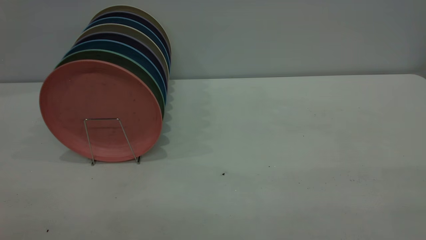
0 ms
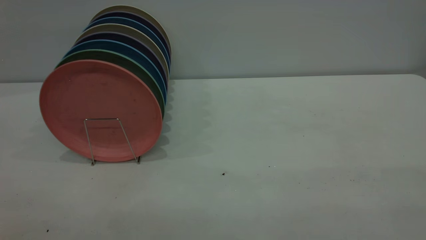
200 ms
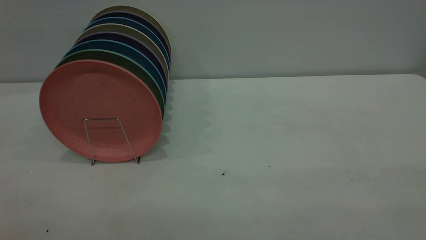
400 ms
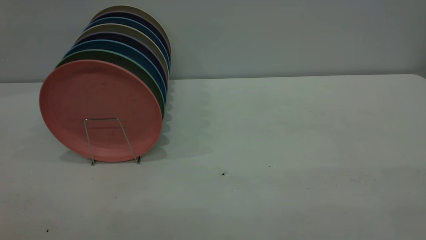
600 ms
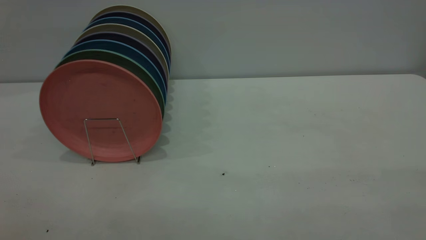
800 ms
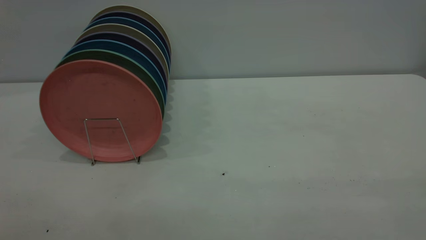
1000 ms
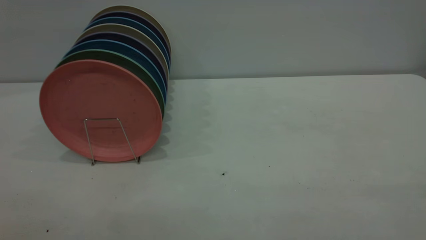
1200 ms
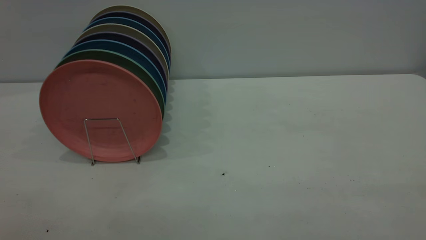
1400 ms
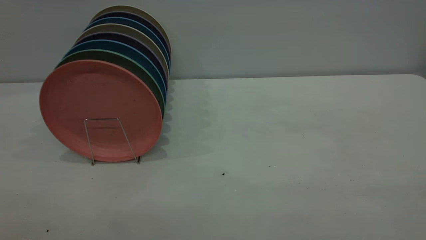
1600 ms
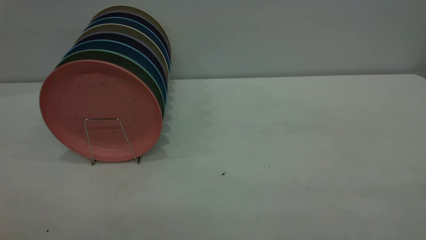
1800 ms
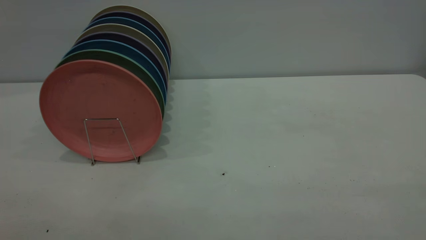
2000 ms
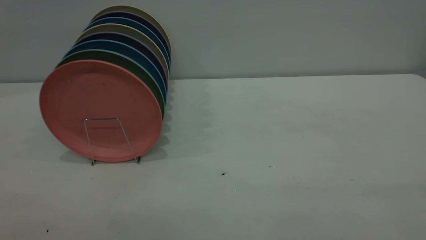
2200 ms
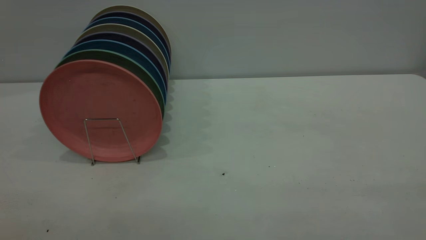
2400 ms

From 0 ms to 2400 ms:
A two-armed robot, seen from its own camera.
Task of the whole recording: the right gripper grasp the pink plate, the right gripper pass the pink plate to the left gripper, and the left gripper place the pink plate on the plate rack.
From 1200 ms to 2400 ms: Neither gripper changes place.

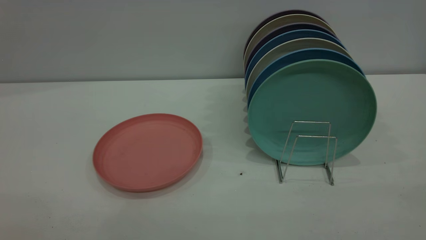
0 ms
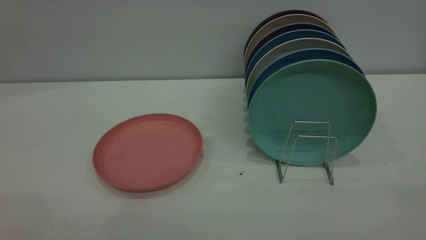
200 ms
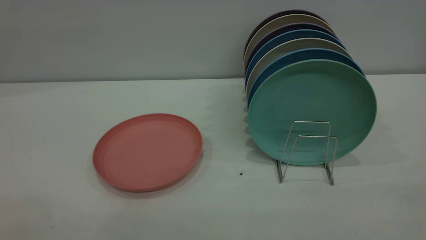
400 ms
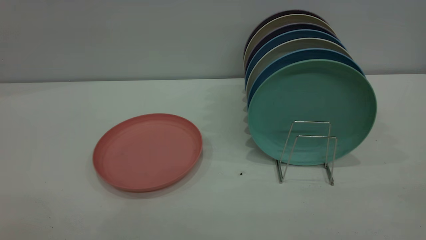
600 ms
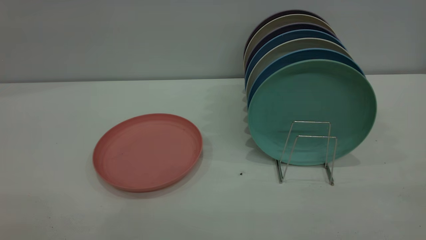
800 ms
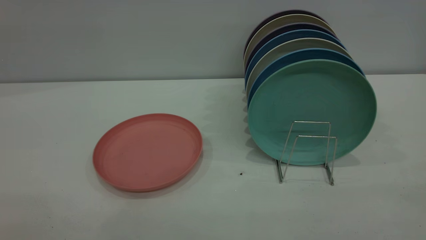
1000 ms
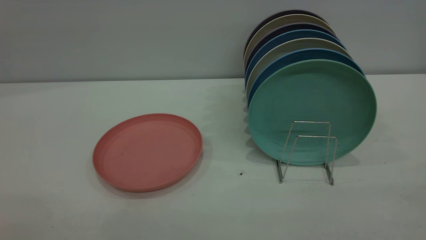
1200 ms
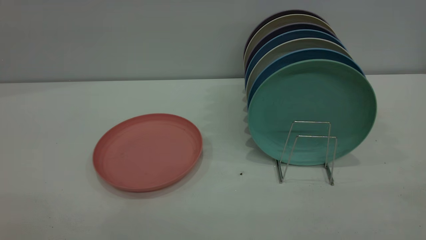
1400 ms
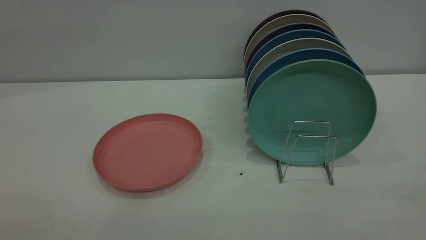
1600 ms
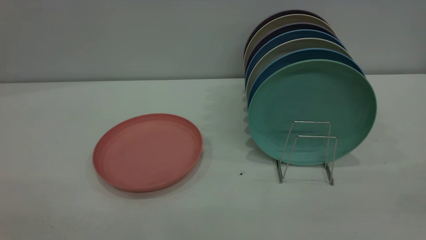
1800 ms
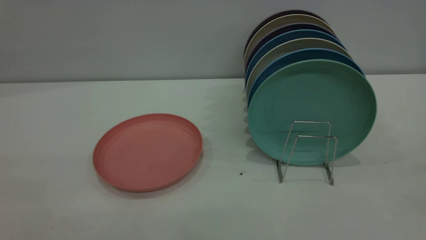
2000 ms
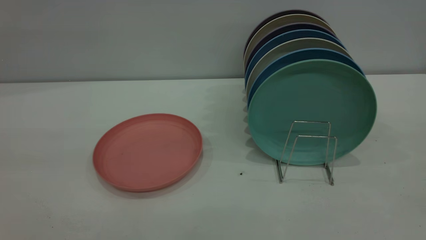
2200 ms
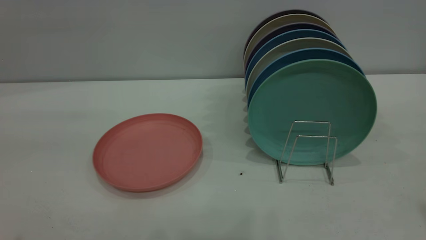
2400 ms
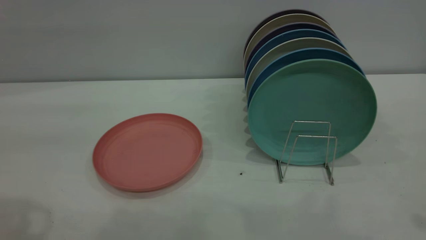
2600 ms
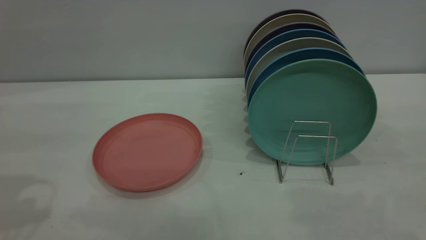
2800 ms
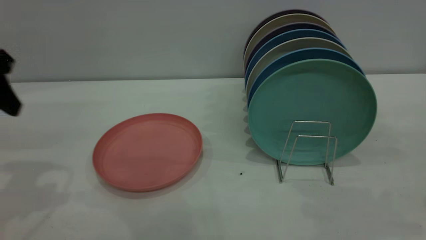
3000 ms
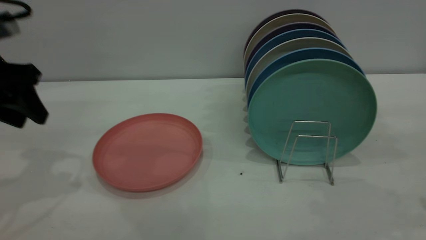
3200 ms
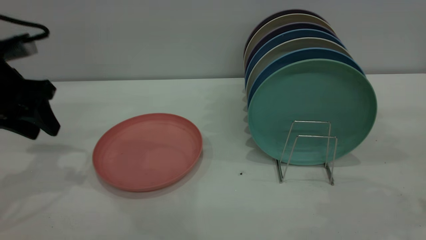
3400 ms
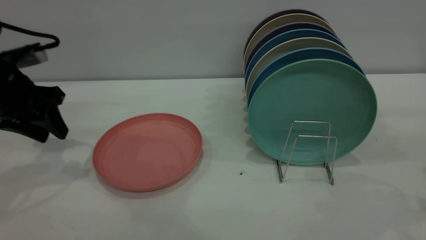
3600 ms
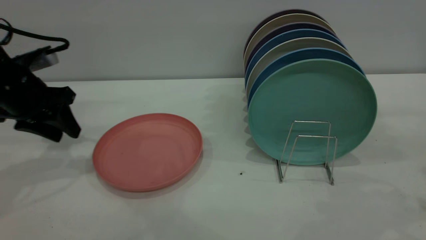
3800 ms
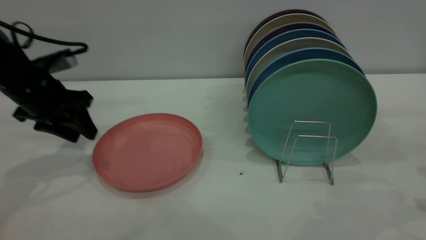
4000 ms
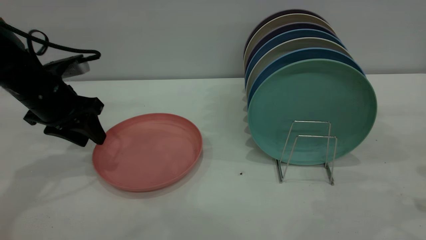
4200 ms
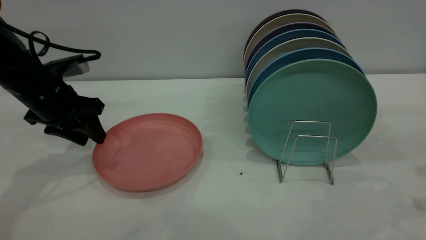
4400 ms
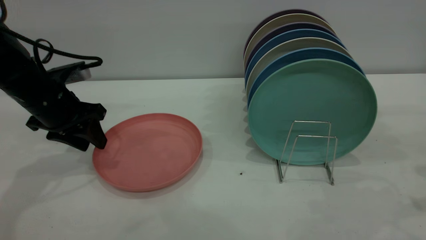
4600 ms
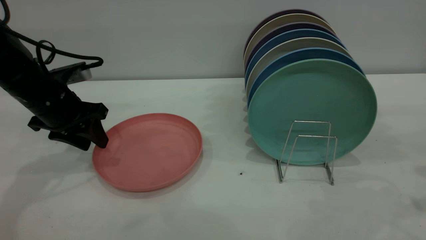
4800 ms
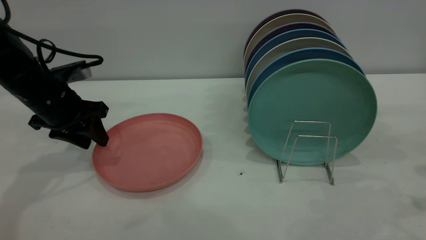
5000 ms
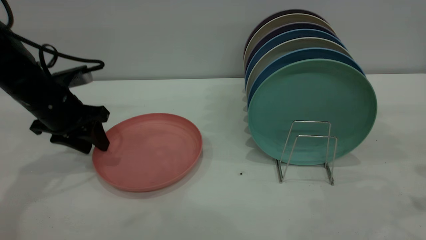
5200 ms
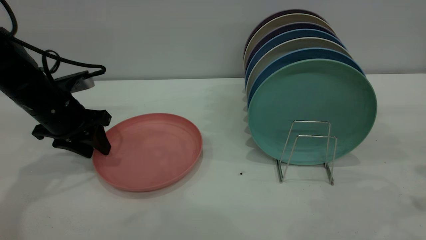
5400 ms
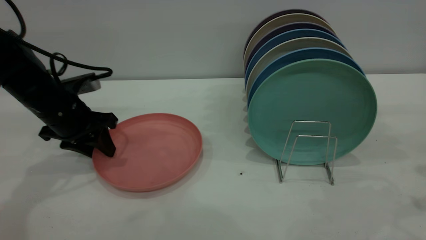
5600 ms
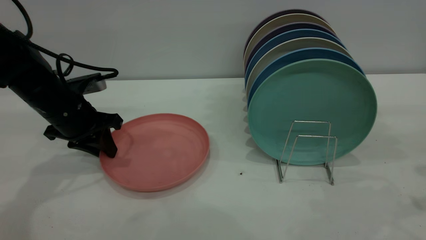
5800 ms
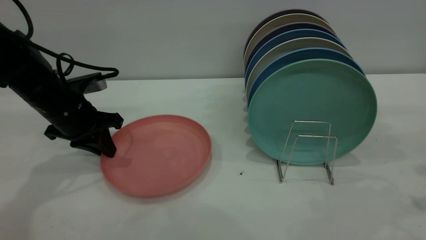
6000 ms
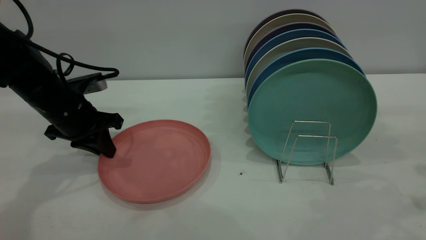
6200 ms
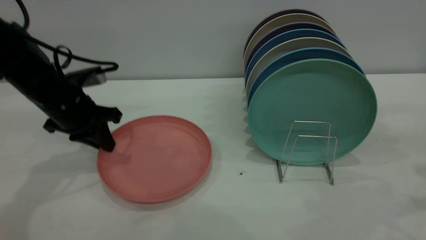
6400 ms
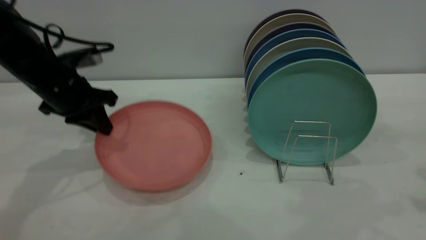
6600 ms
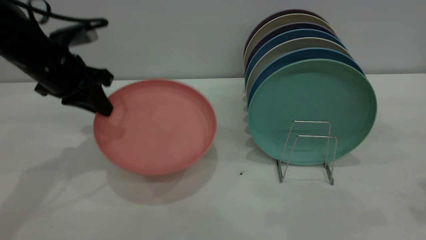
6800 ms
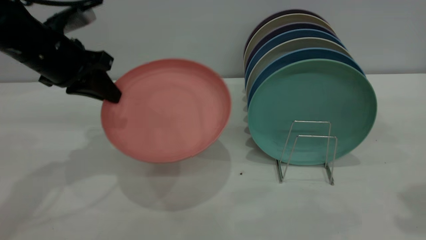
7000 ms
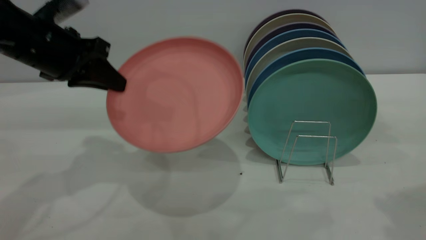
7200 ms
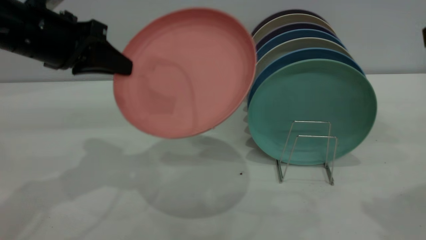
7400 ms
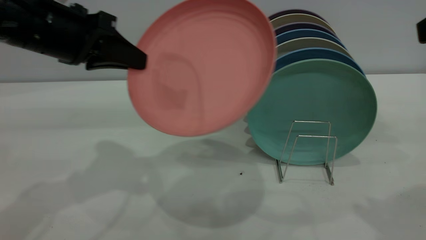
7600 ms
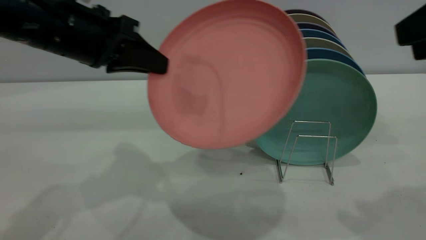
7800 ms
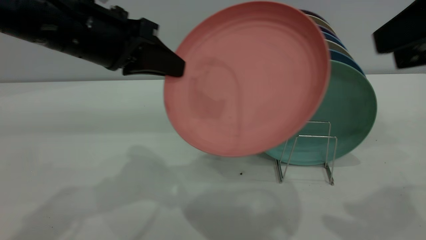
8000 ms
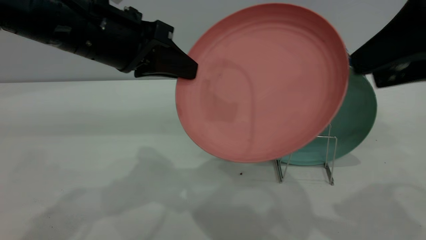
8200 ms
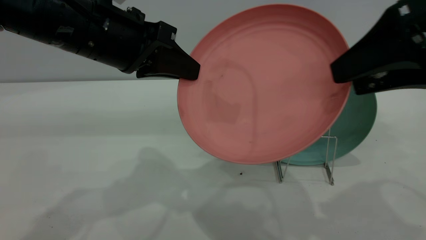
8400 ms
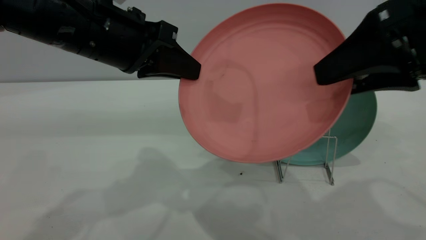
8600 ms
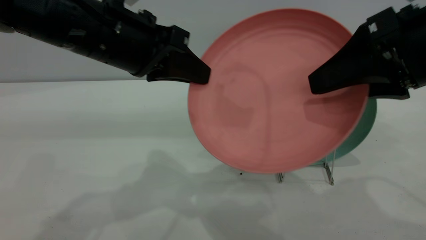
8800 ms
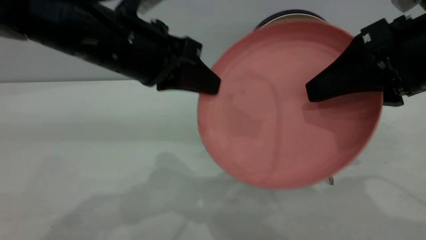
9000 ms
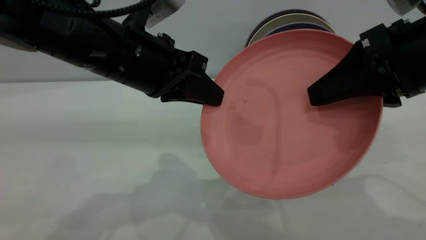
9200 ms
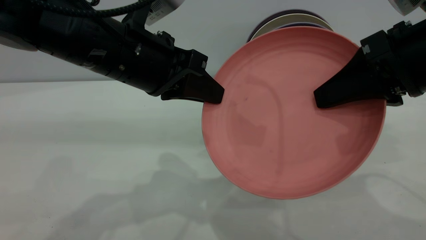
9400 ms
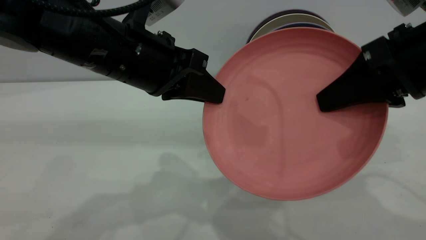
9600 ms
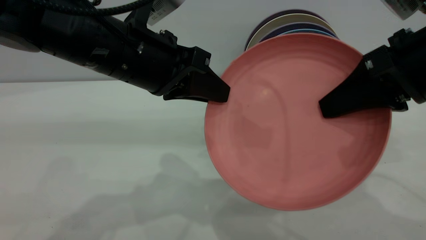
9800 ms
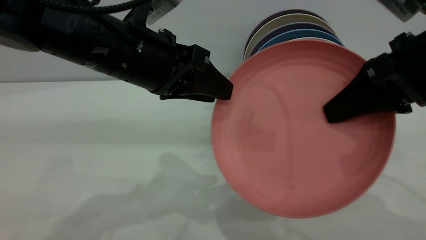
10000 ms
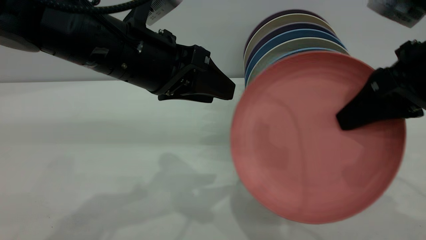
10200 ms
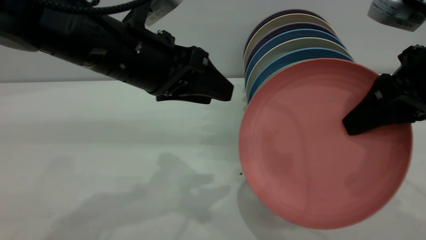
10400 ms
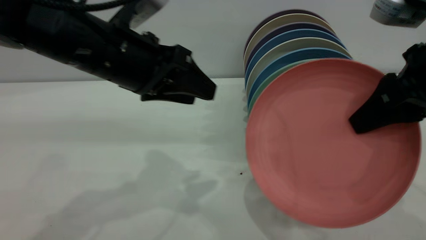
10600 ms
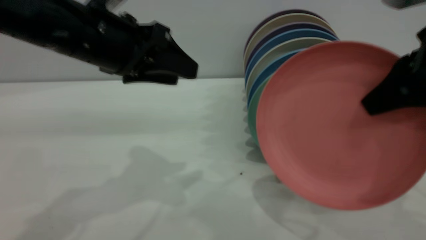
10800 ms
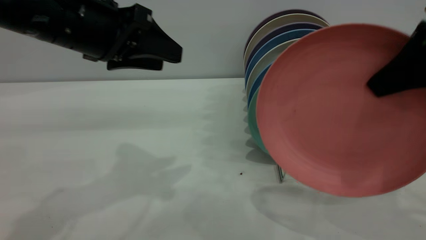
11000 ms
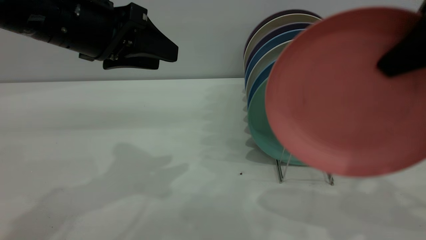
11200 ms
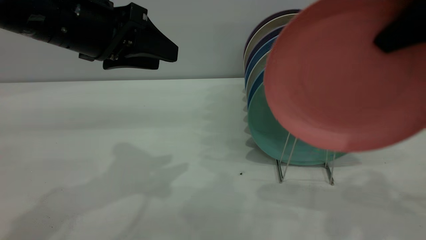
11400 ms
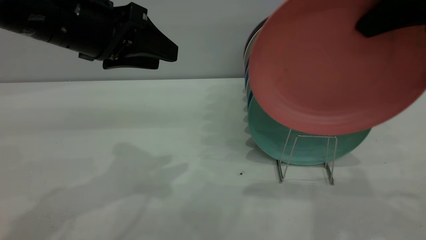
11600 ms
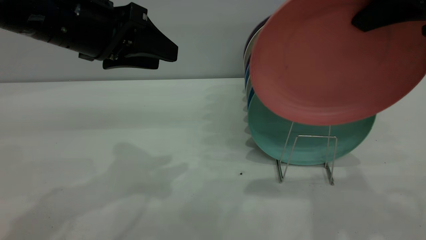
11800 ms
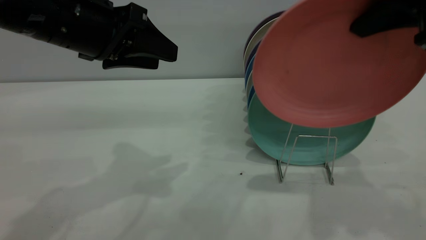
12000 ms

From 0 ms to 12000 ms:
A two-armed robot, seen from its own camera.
Task of the whole recording: put the plate on the plate rack.
Step, from 0 ms to 6600 ms: Pick up the plate with the left gripper.
Step, from 6800 ms to 10200 ms: Pass the plate from the left gripper to the right gripper.
From 0 ms to 1600 ms: Both grippers stay about where they are.
From 1600 ms to 3000 ms: The left gripper heads forward, covering roughly 30 cm.
From 3000 ms to 4400 ms: The left gripper heads downward and forward, covering approximately 15 cm.
From 4400 ms to 6000 ms: The left gripper closes up.
From 6000 ms to 7600 ms: The right gripper goes roughly 10 cm upward and to the left; the left gripper shifts roughly 15 cm upward and backward.
From 7600 ms to 9000 ms: The right gripper goes about 10 cm to the left and downward. The left gripper moves to the right, some 10 cm.
From 9000 ms to 10400 ms: The left gripper opens. Meanwhile the right gripper closes its fingers.
From 10400 ms to 12000 ms: The left gripper travels to the left by approximately 5 cm, while the right gripper shifts roughly 10 cm upward.

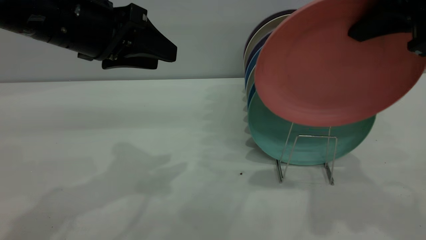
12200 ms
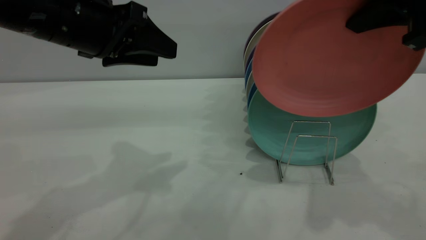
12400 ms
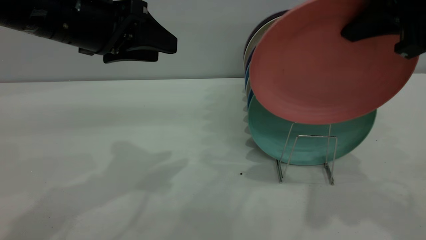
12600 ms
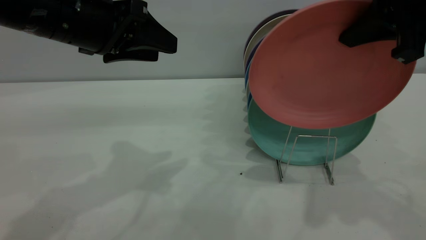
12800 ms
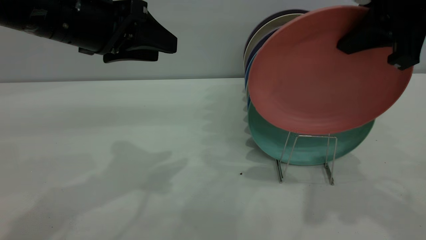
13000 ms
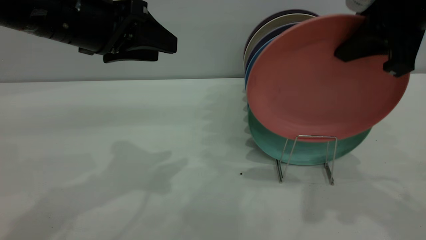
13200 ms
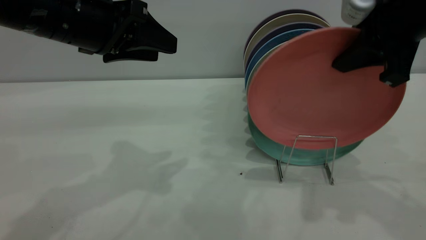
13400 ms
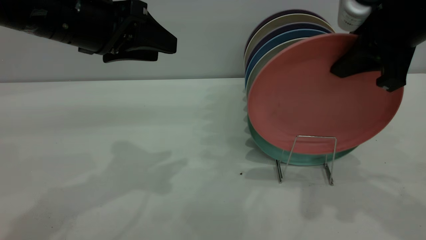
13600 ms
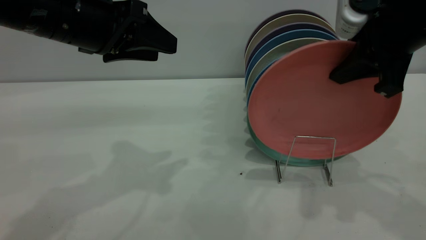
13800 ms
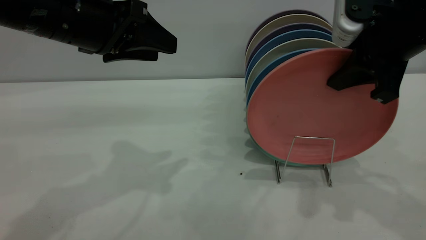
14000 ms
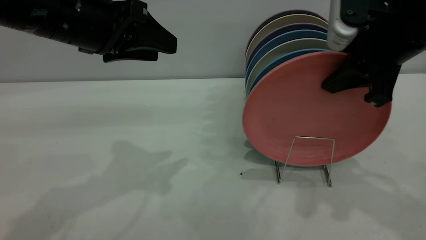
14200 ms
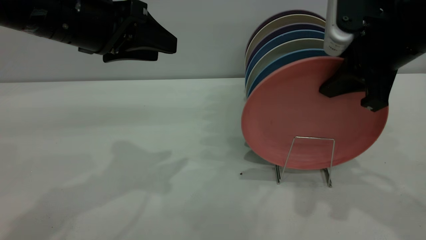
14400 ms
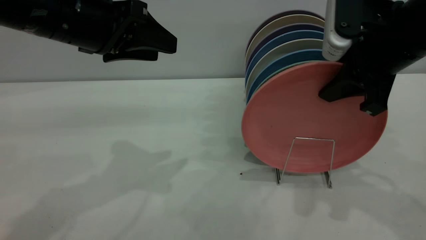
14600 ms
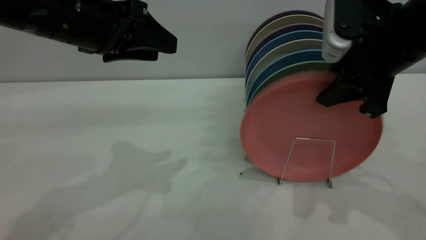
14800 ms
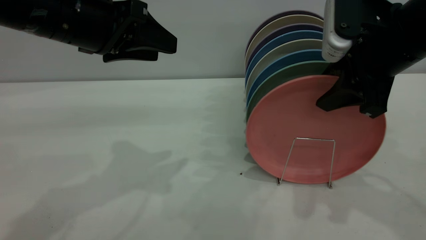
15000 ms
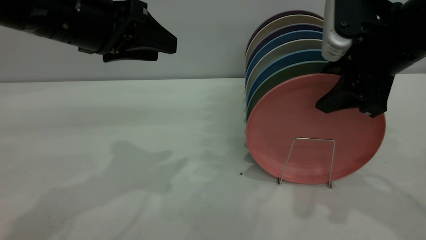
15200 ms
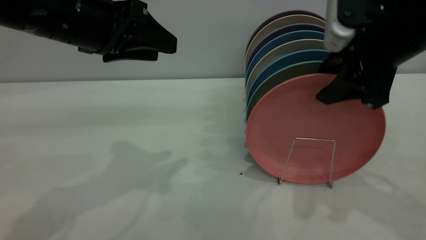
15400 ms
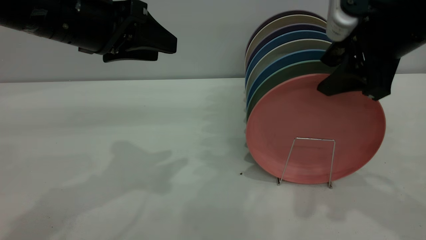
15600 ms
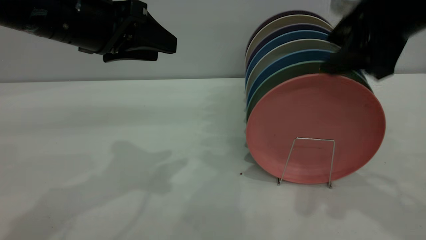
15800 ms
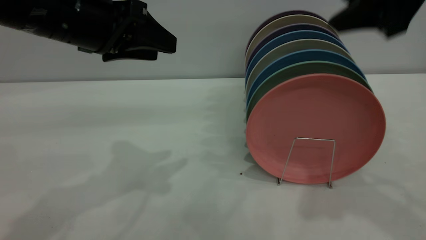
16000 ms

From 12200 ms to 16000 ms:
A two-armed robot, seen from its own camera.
Task of the whole recording: put the plate on the plate rack.
Step, from 12200 ms to 16000 ms: Place the plate on the shelf.
From 12200 ms to 13400 ms: The right gripper shifts by approximately 5 cm.
From 13400 ms to 14800 ms: The right gripper opens its fingers.
From 14800 ms to 16000 ms: The right gripper travels upward by approximately 10 cm, and opens up.
